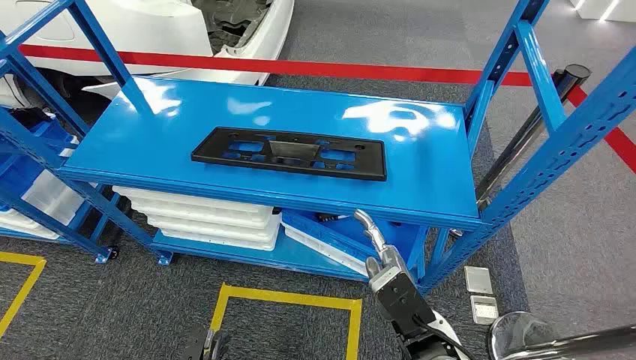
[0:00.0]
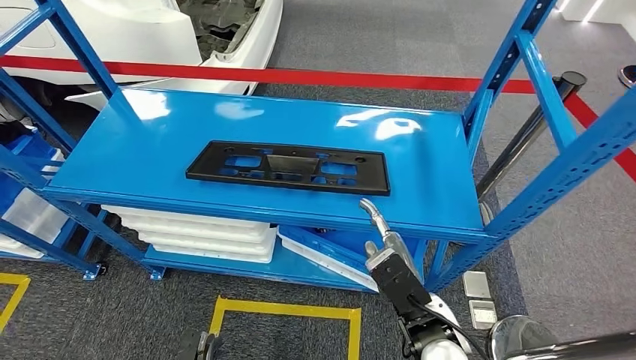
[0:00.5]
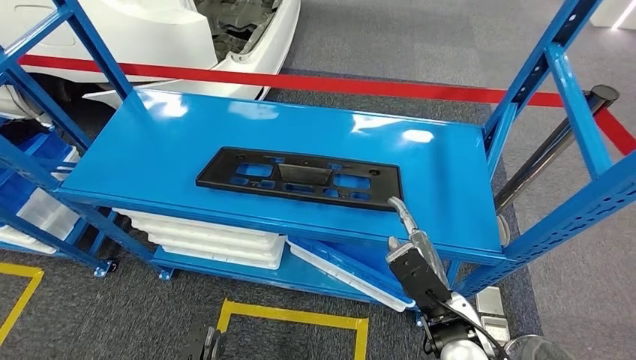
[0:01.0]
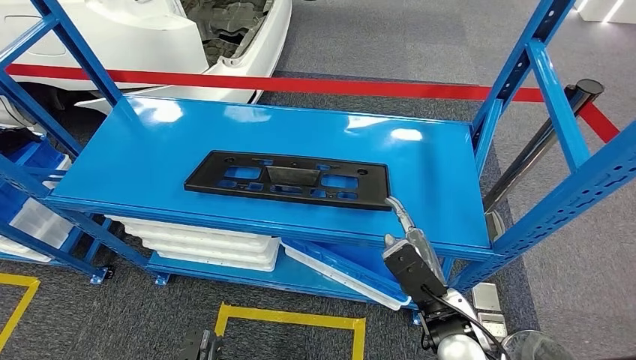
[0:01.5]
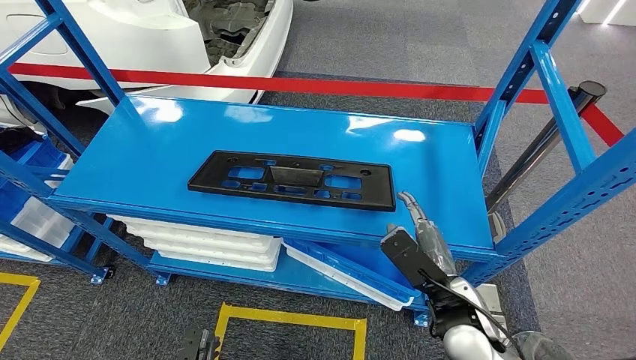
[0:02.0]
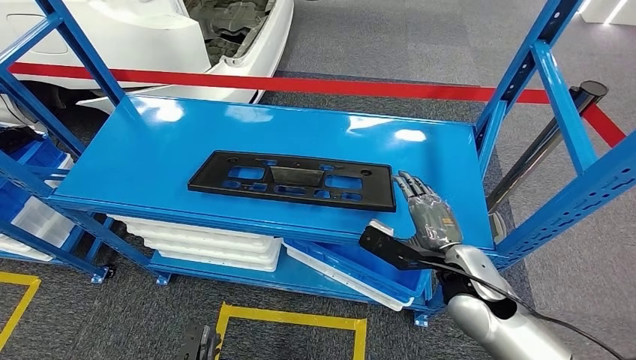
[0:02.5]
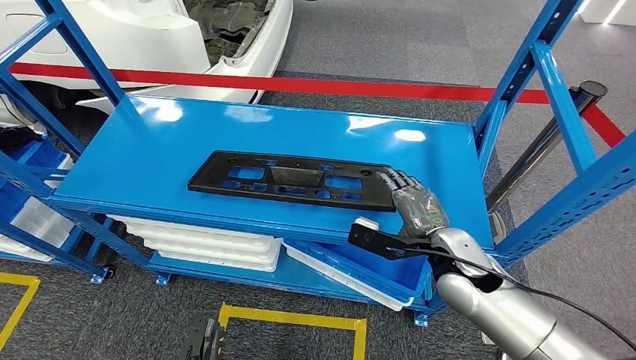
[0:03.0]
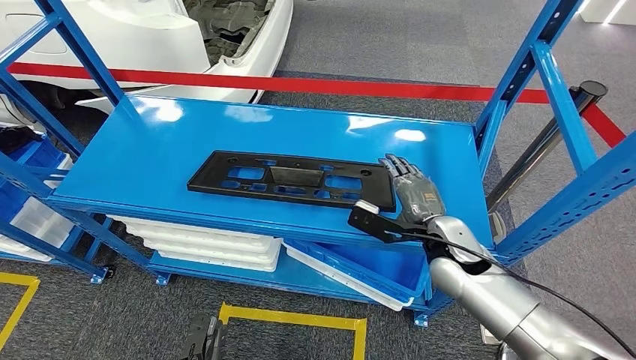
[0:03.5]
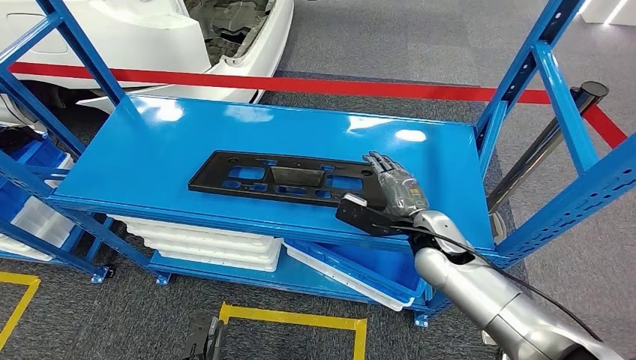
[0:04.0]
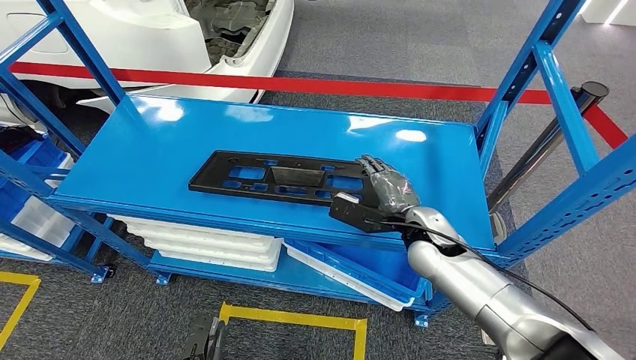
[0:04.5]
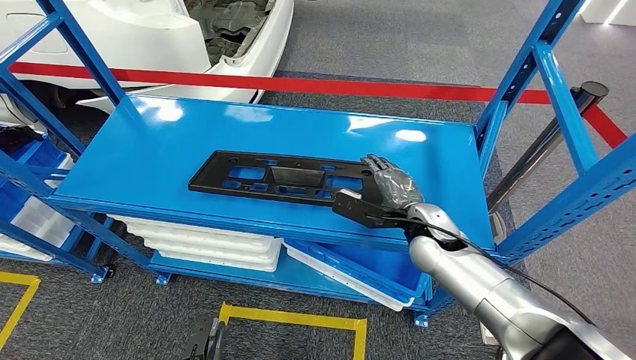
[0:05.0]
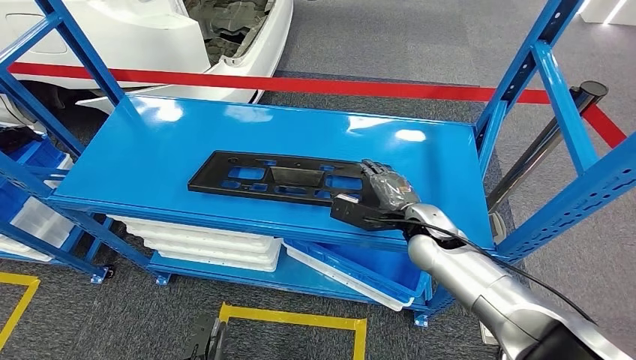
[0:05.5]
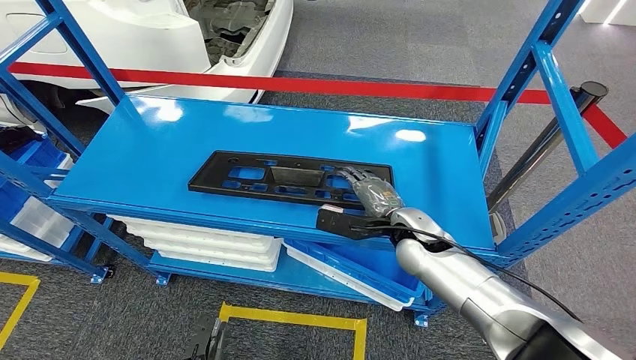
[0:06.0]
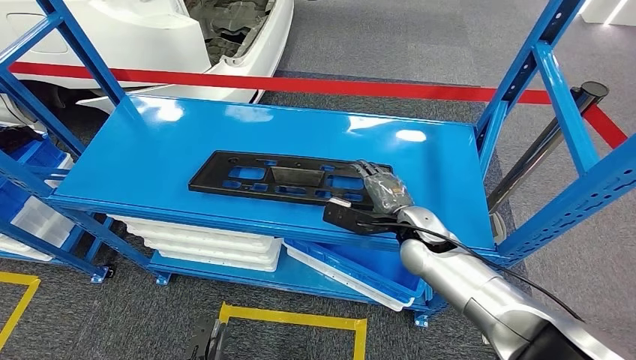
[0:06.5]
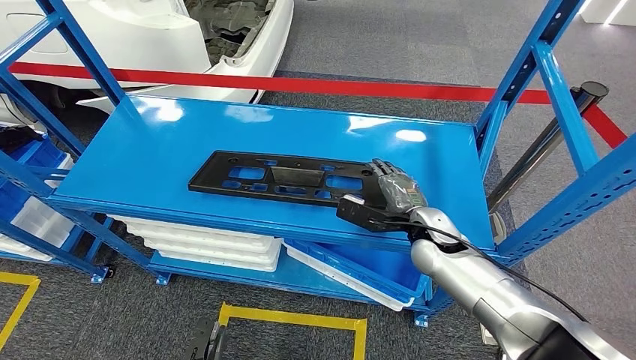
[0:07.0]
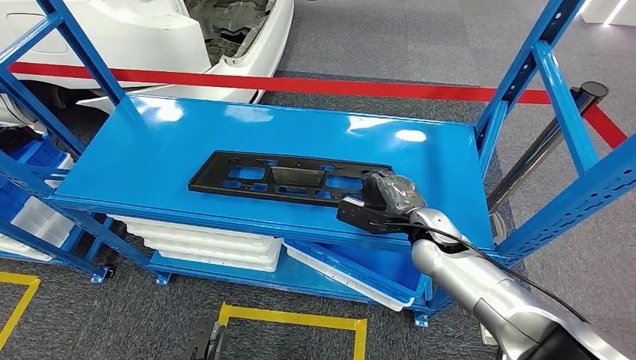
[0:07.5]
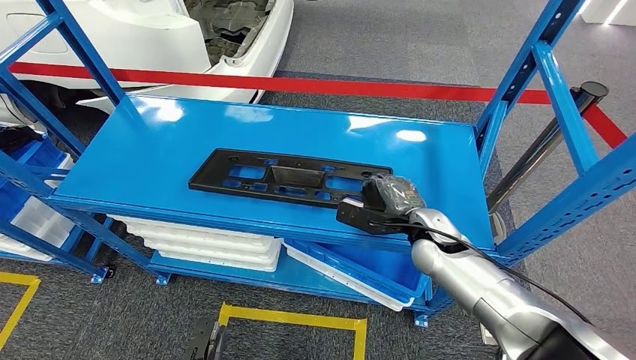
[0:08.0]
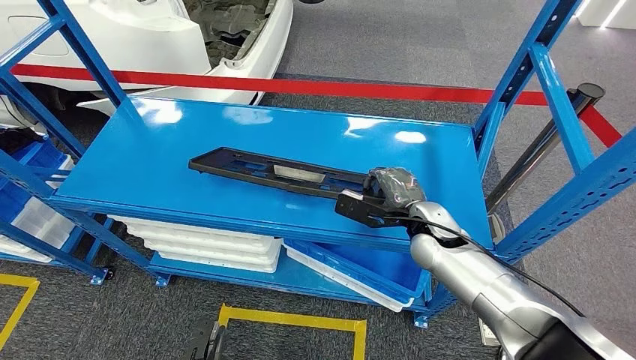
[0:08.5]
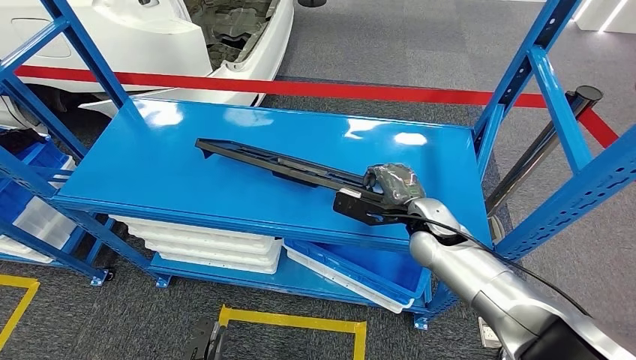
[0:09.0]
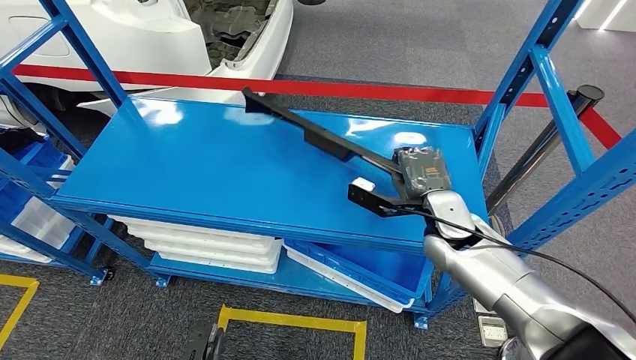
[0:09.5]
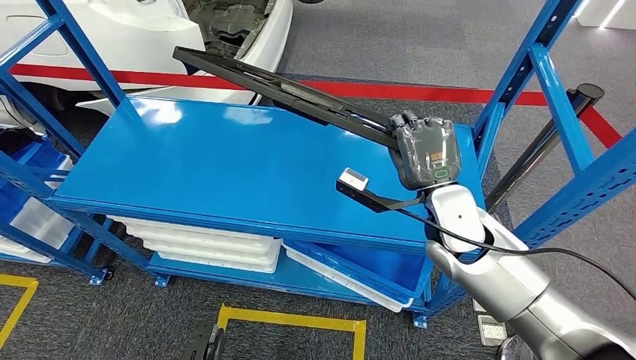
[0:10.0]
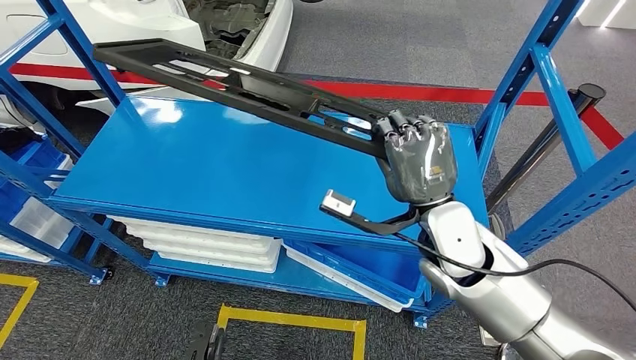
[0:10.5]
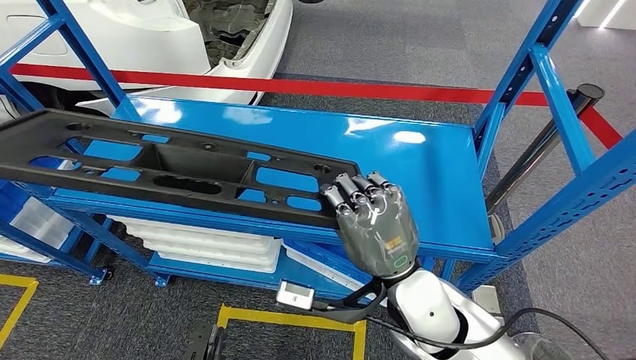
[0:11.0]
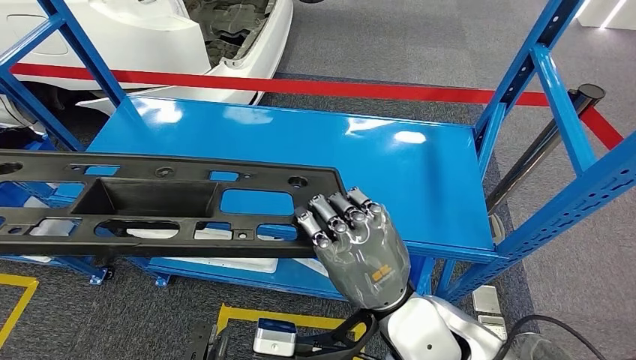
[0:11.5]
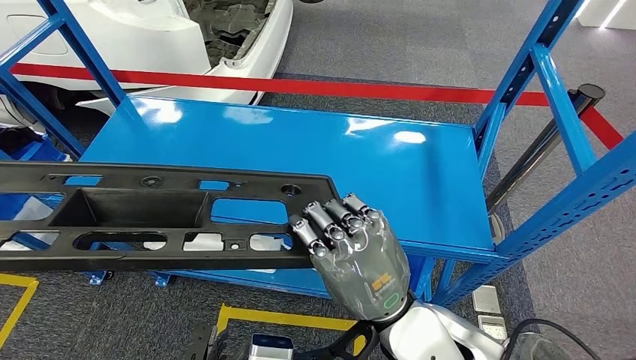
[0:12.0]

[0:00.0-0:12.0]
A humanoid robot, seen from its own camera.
Step, 0:00.0 to 0:11.5: Pick up the large material from the shelf.
0:02.0 to 0:04.0: The right hand moves forward, some 10 cm.
0:04.0 to 0:08.0: The hands stay close to where they were, moving slightly.

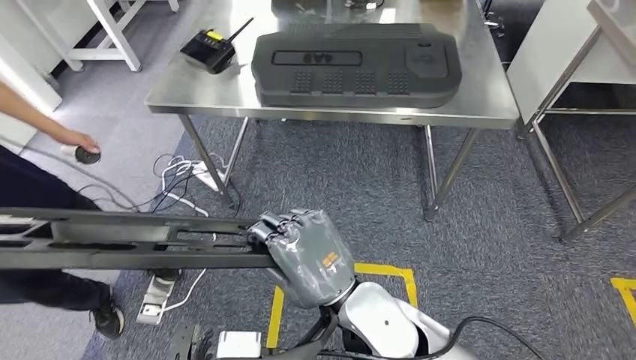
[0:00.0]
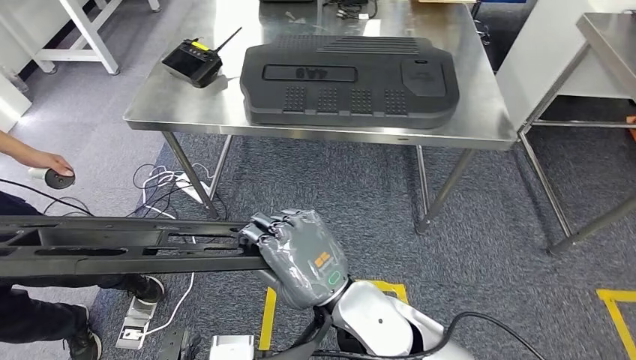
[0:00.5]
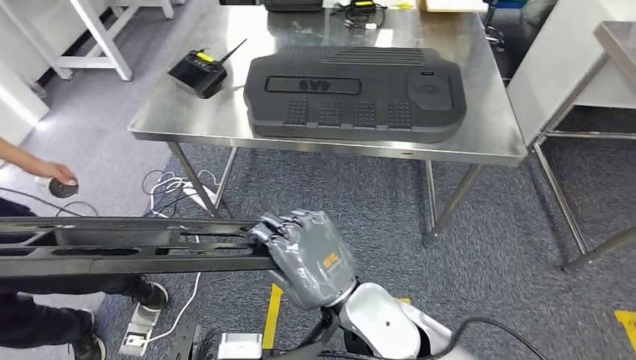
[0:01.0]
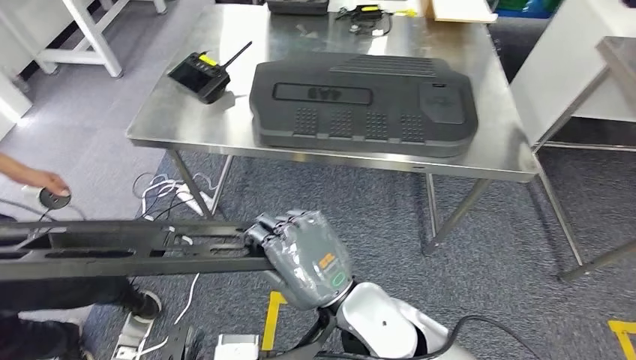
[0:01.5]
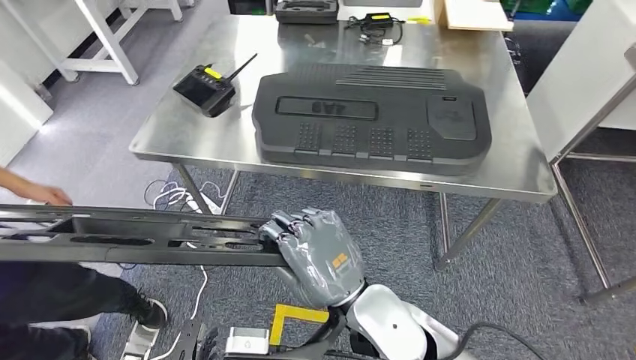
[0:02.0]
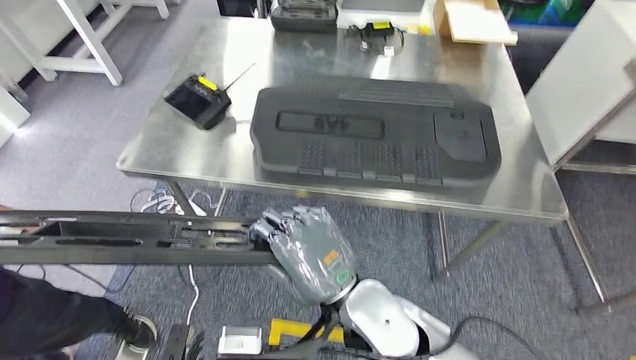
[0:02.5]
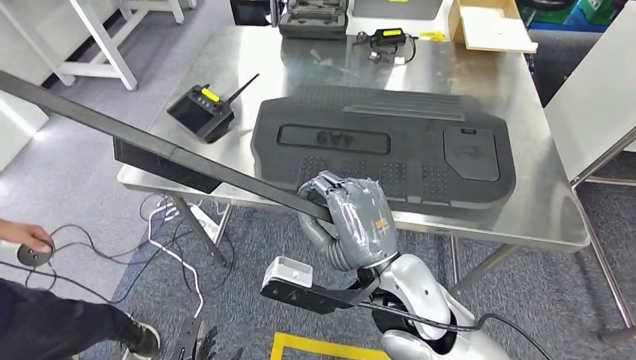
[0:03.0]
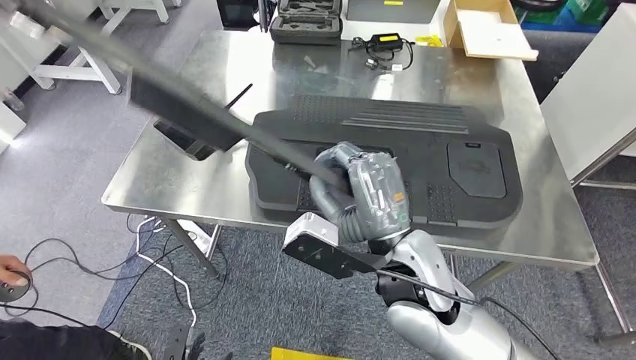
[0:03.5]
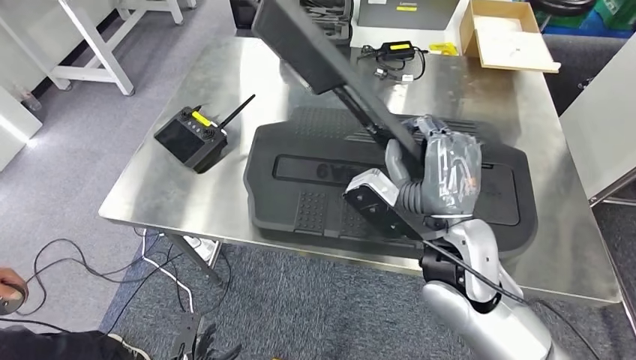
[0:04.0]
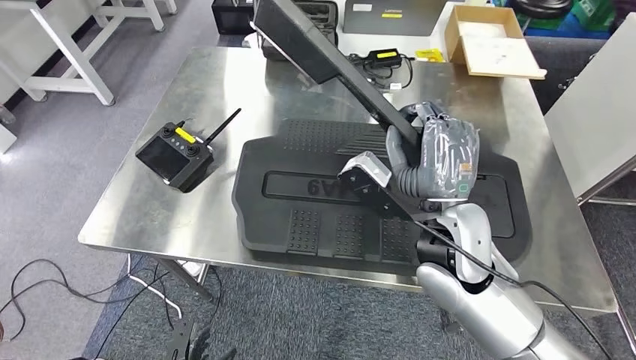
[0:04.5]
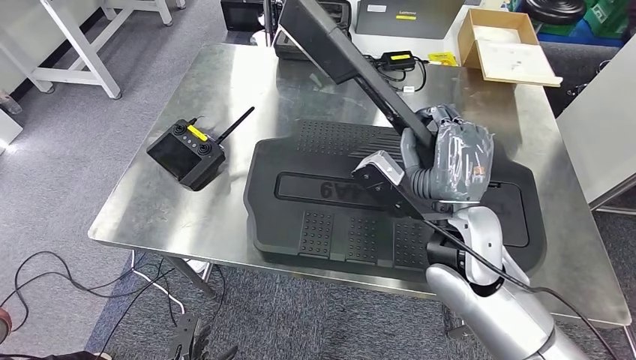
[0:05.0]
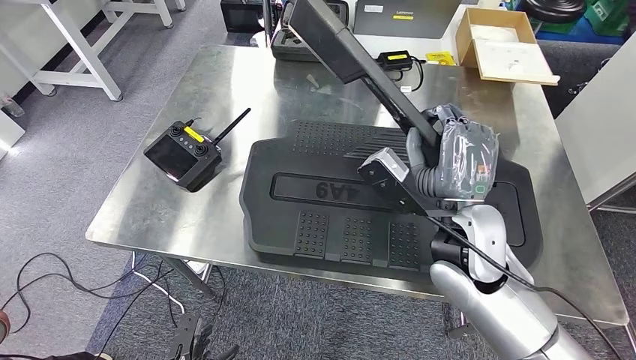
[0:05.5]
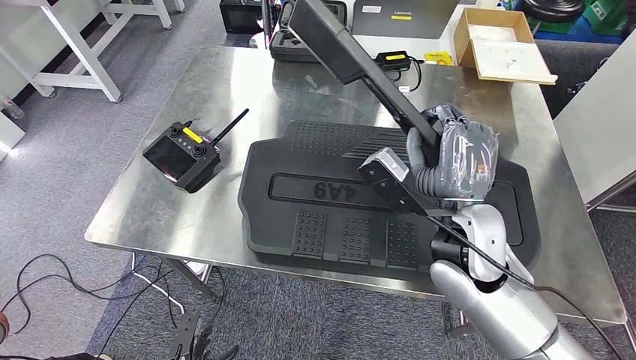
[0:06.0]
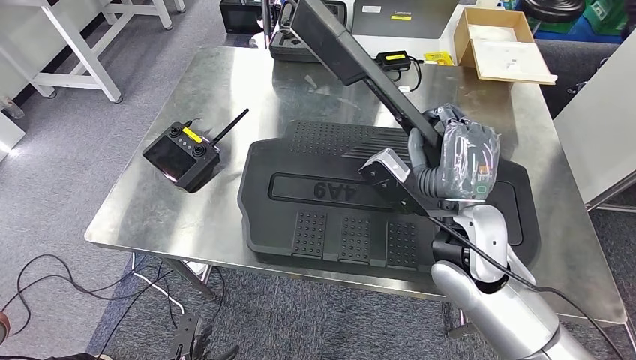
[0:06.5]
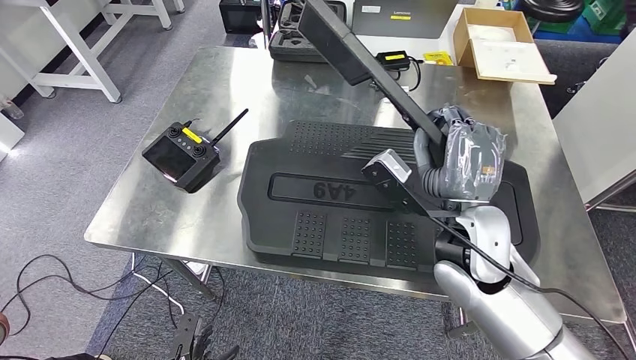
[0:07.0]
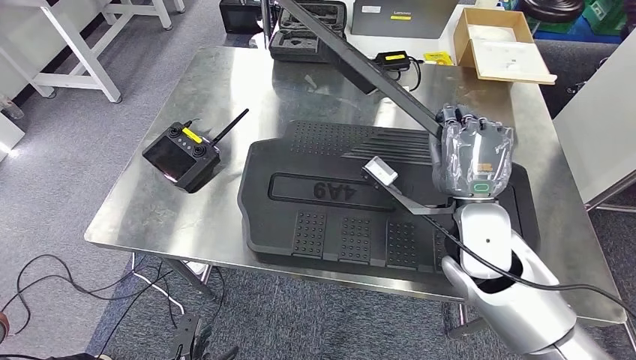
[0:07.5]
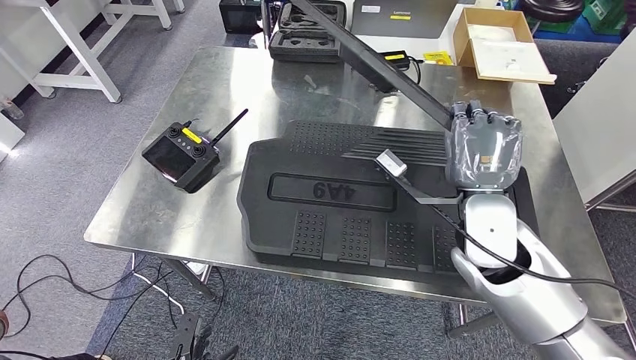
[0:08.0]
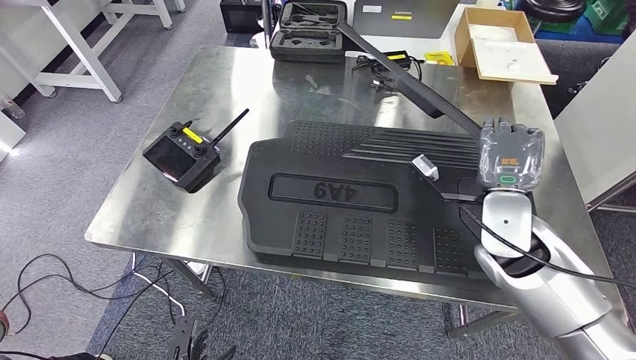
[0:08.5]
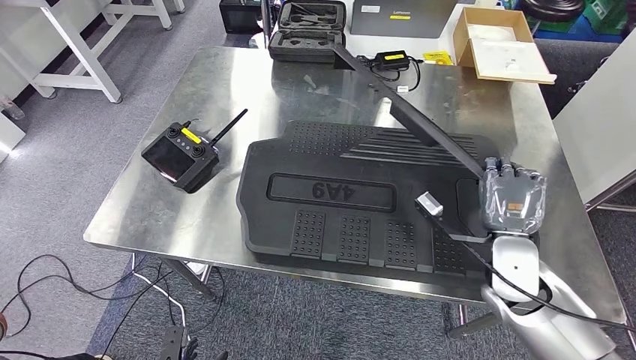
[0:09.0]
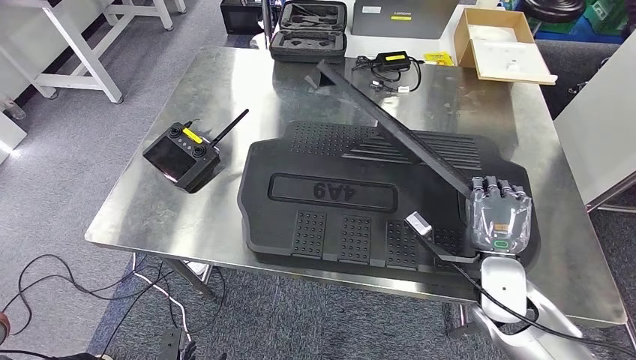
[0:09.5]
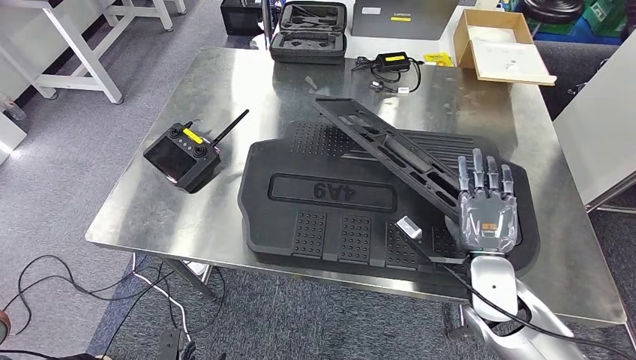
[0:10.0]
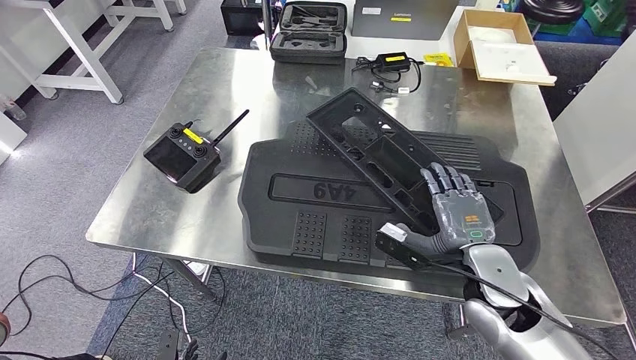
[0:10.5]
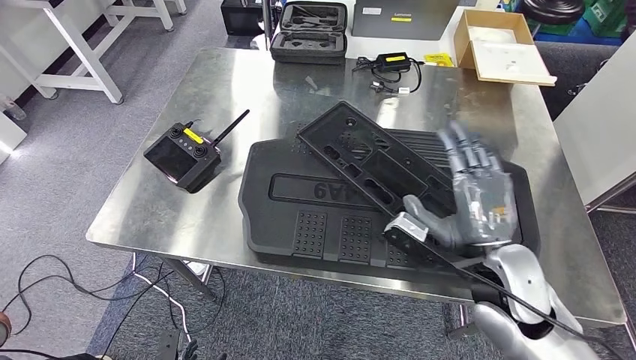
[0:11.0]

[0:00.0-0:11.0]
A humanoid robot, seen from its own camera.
Step, 0:00.0 to 0:02.5: Move the large material to the workbench.
0:07.5 to 0:09.0: The right hand shifts roughly 10 cm to the right and downward.
0:09.0 to 0:11.0: The right hand ends up about 10 cm from where it was.
